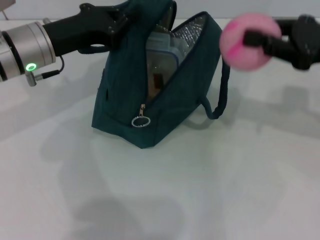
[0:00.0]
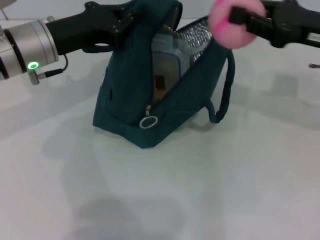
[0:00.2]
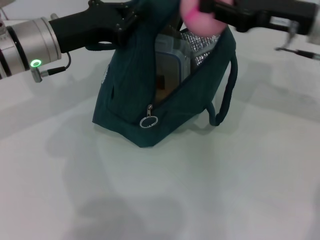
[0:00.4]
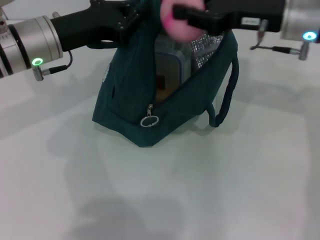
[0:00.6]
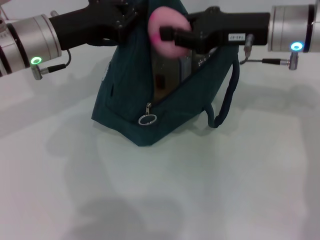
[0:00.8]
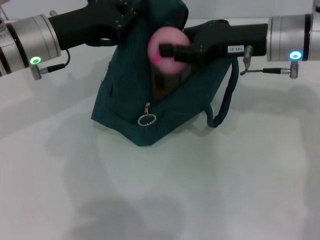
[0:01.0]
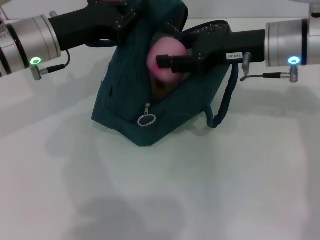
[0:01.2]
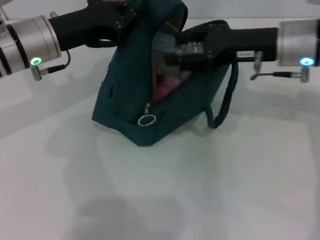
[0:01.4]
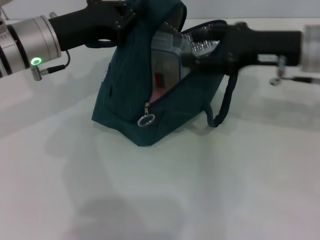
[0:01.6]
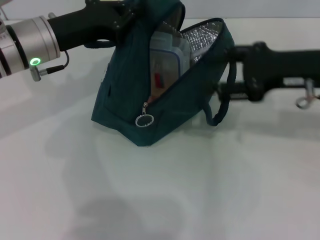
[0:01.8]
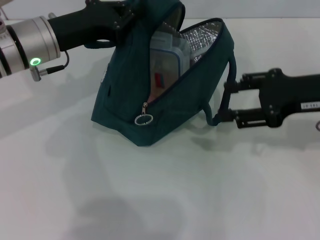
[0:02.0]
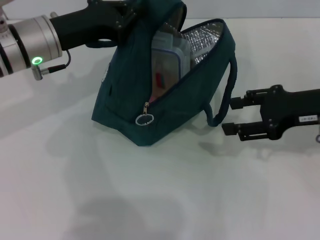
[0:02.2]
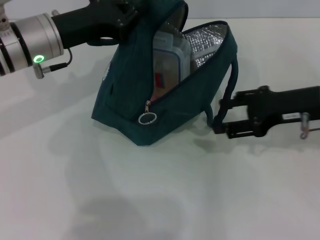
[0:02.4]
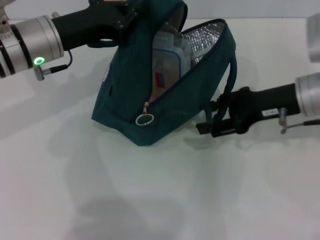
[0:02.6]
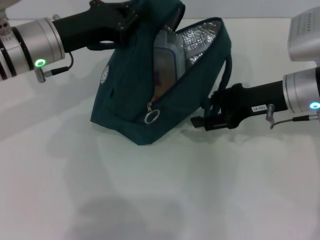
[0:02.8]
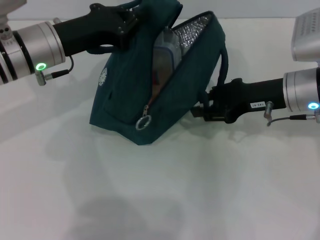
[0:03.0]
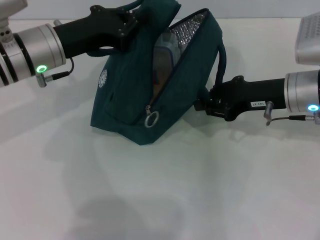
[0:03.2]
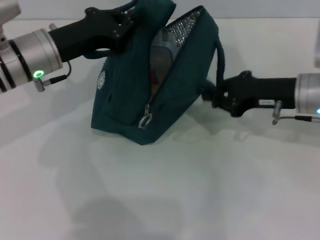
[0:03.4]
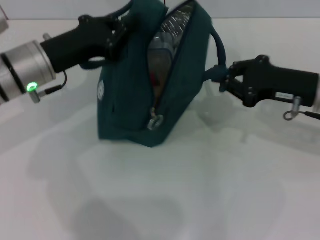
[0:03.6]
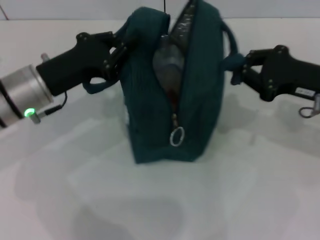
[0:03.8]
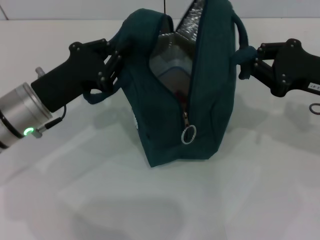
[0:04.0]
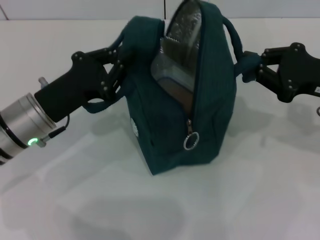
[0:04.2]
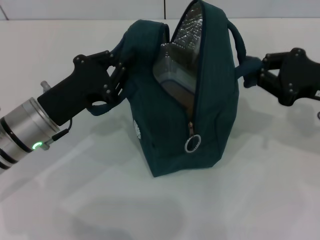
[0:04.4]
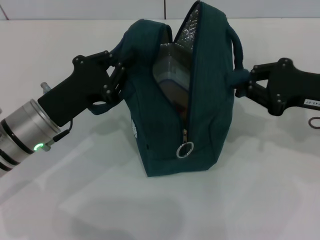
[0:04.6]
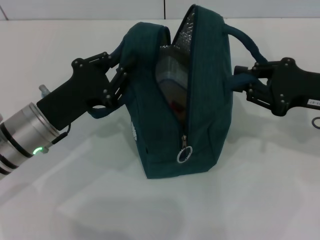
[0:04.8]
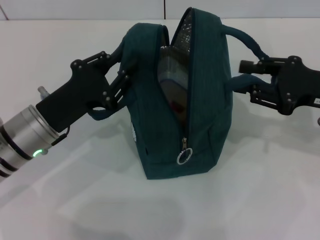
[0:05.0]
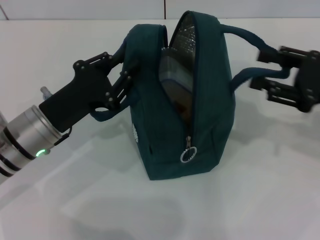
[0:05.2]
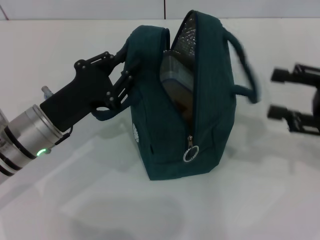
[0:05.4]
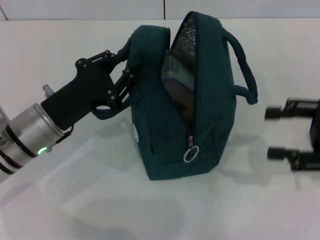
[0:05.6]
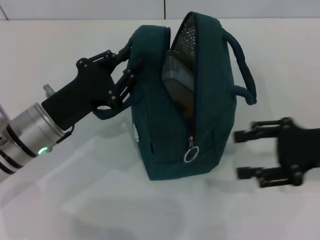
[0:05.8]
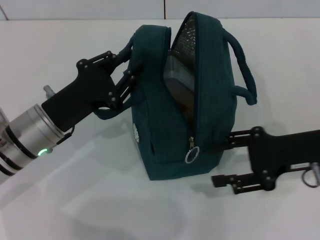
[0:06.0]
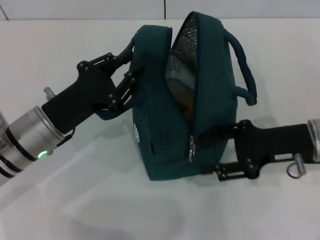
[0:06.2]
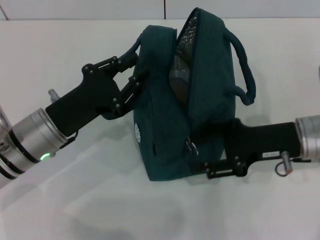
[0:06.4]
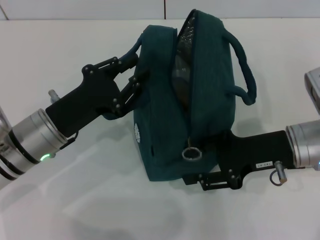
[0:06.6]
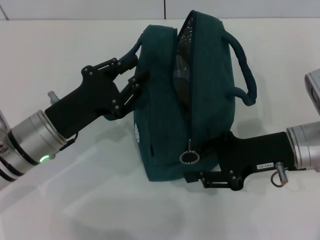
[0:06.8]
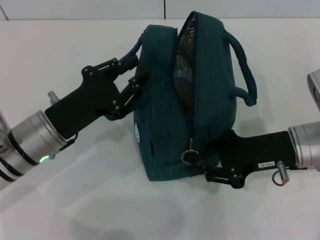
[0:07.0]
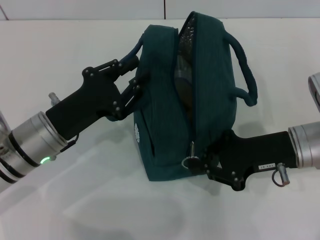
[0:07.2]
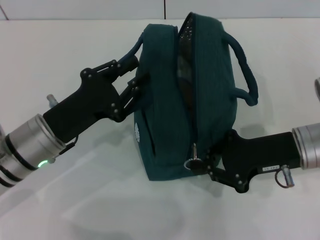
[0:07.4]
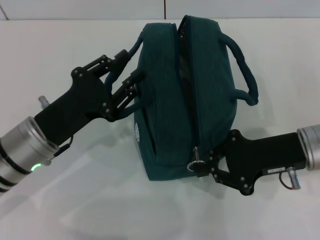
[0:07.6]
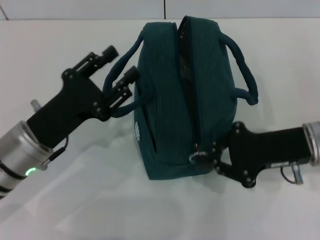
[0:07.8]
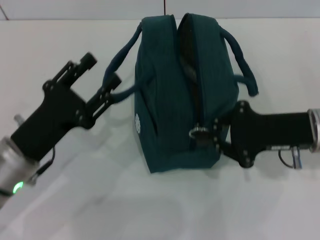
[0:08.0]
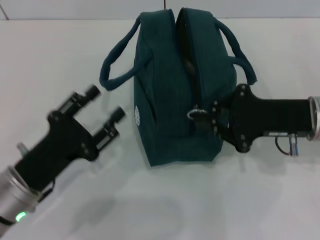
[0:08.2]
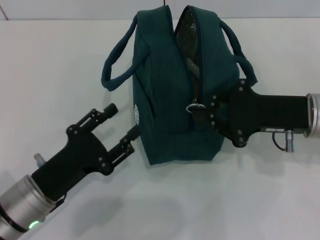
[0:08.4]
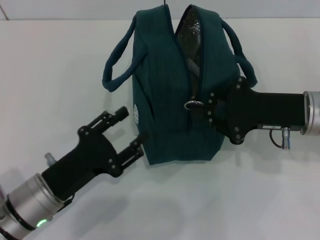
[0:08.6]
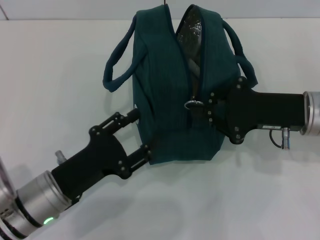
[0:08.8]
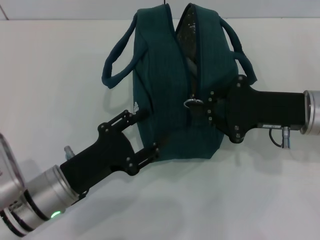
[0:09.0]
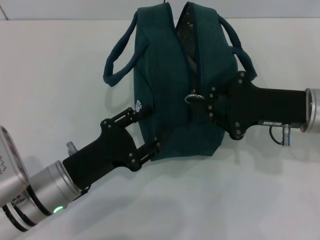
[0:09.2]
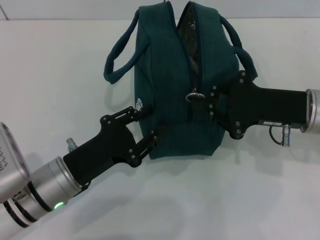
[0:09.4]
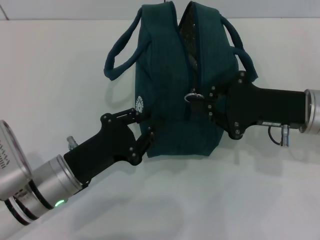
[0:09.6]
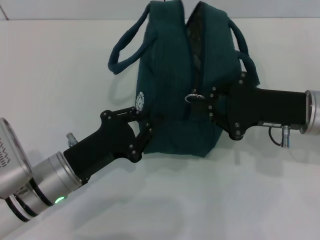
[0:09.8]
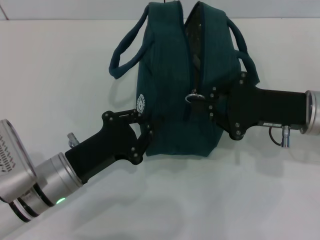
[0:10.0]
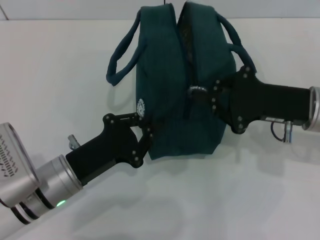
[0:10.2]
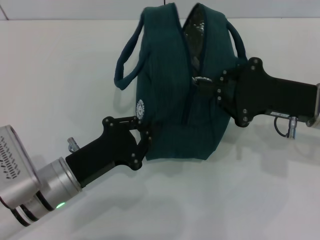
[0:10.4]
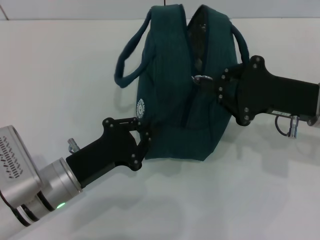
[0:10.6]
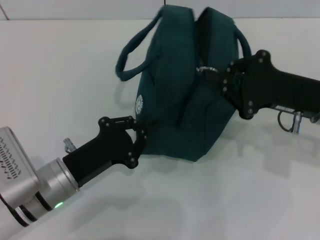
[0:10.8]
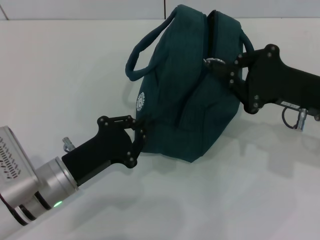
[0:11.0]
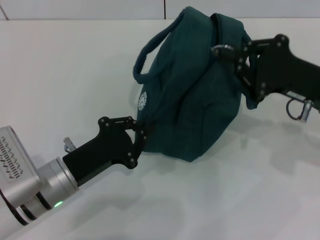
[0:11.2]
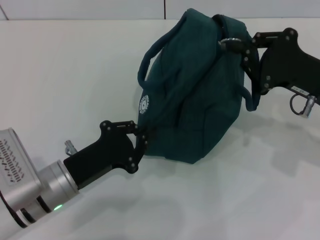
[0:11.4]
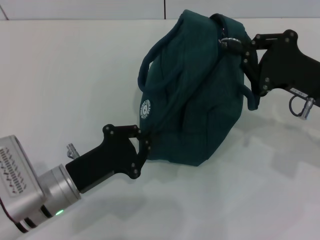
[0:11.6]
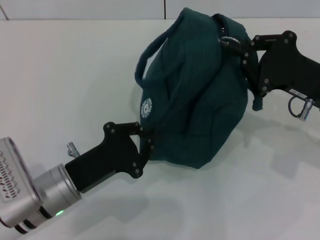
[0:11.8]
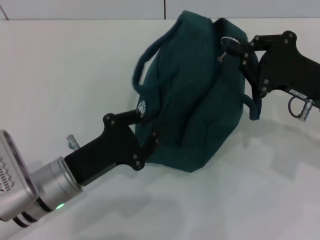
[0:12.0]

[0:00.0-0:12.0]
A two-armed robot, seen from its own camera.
Step, 0:02.0 to 0:05.0: Hold the lunch bag with your right hand.
0:00.0 to 0:01.6: The right gripper moves to the left, about 5 cm, and opens.
0:01.6 to 0:03.0: The right gripper shifts about 5 cm downward.
0:03.0 to 0:04.4: The left gripper moves backward and downward, roughly 10 cm; the right gripper moves to the right, some 5 cm, and closes.
0:04.4 to 0:06.0: The right gripper changes place by some 5 cm, and opens up.
0:06.0 to 0:07.6: The right gripper closes.
0:07.6 to 0:09.0: The left gripper shifts by about 5 cm, and opens up.
0:09.0 to 0:10.4: The left gripper closes its fingers.
0:10.4 to 0:12.0: The grippers make only small movements.

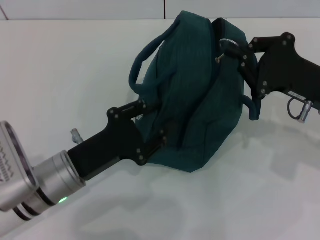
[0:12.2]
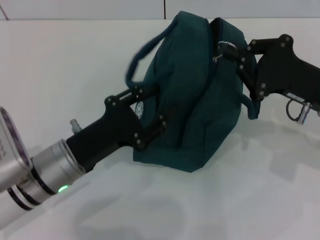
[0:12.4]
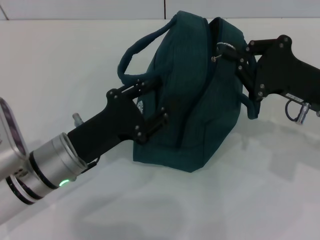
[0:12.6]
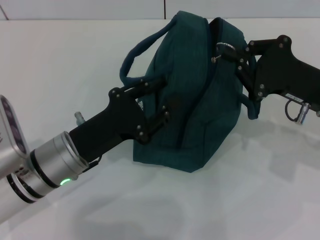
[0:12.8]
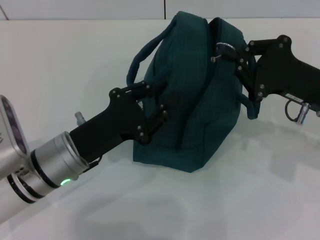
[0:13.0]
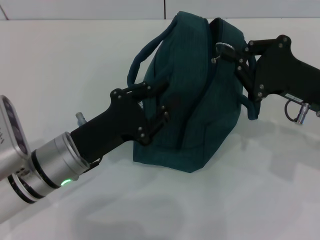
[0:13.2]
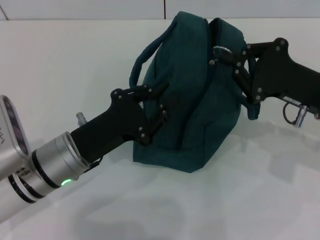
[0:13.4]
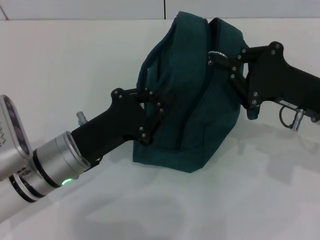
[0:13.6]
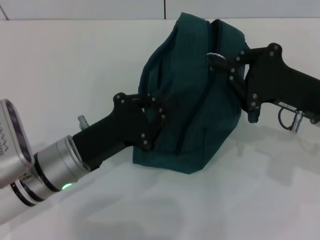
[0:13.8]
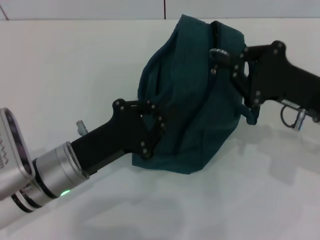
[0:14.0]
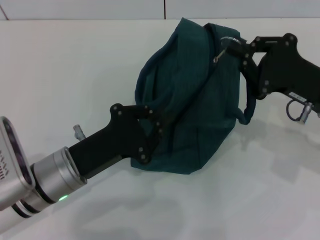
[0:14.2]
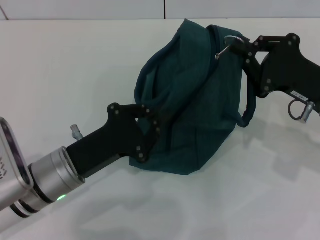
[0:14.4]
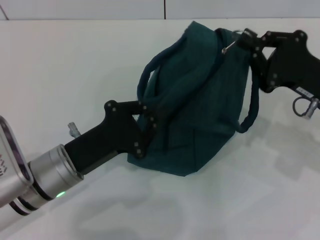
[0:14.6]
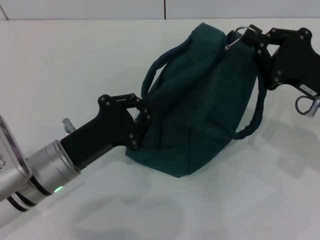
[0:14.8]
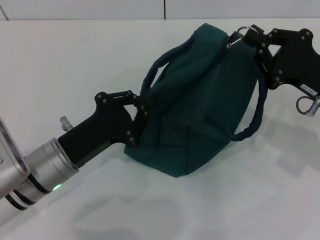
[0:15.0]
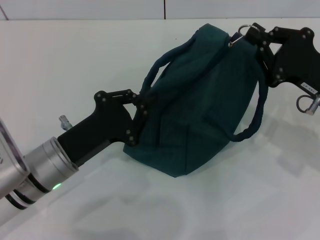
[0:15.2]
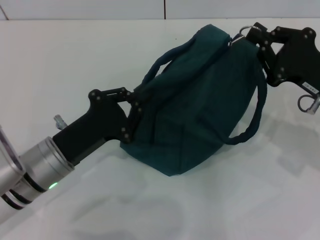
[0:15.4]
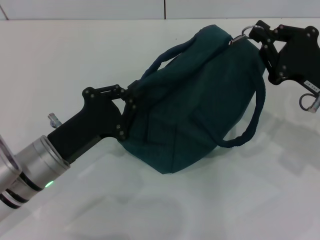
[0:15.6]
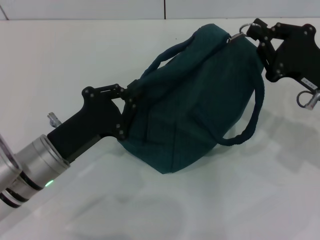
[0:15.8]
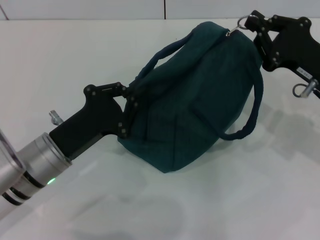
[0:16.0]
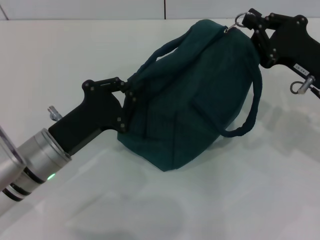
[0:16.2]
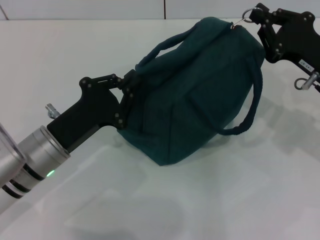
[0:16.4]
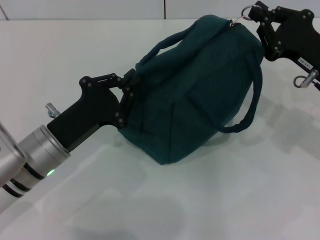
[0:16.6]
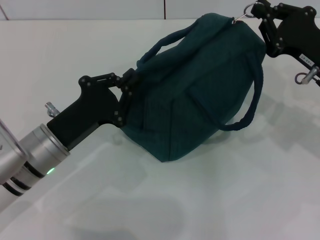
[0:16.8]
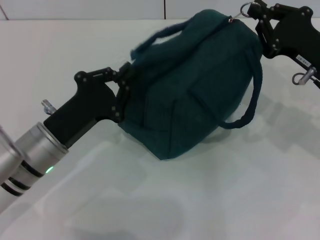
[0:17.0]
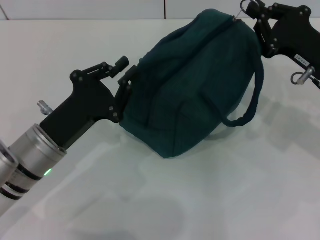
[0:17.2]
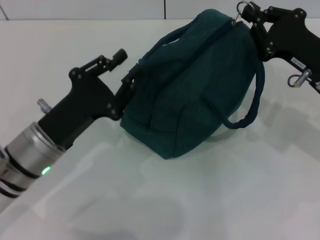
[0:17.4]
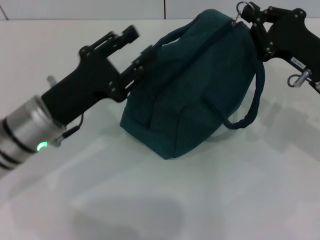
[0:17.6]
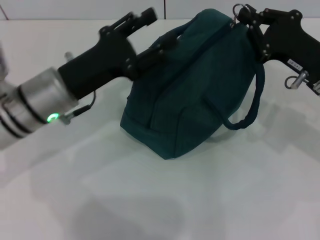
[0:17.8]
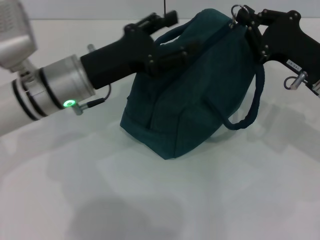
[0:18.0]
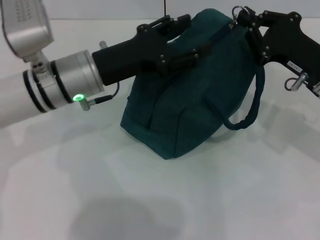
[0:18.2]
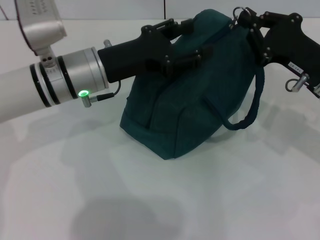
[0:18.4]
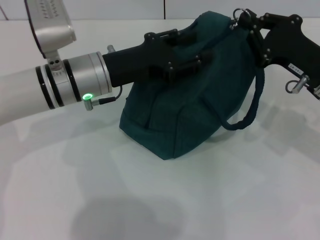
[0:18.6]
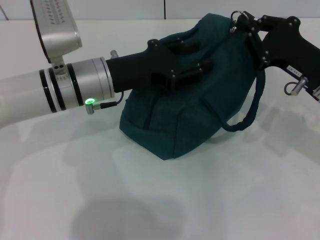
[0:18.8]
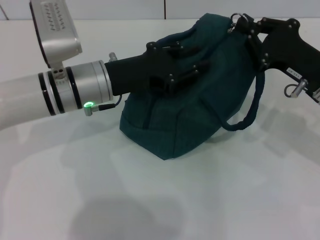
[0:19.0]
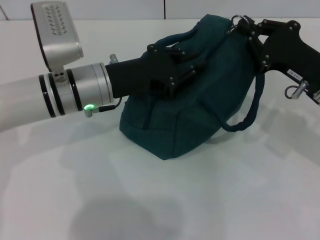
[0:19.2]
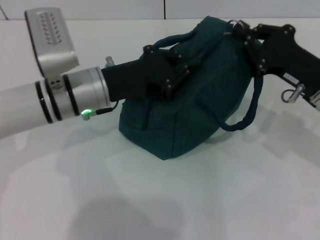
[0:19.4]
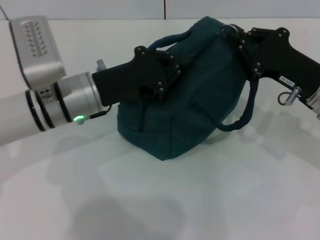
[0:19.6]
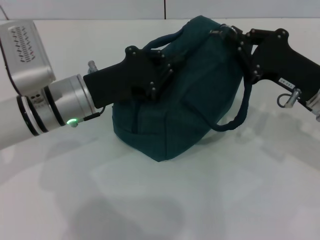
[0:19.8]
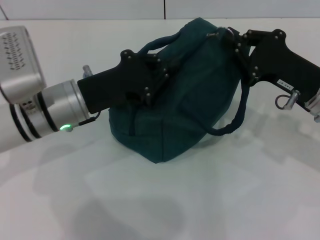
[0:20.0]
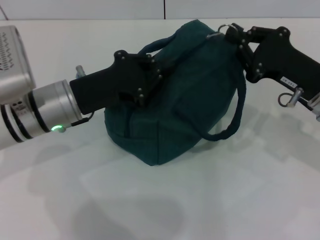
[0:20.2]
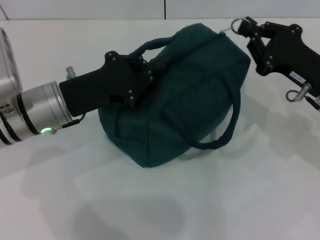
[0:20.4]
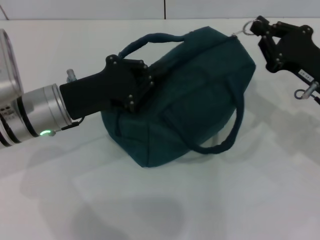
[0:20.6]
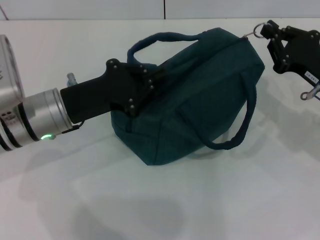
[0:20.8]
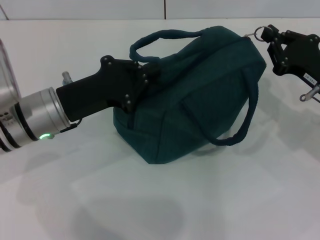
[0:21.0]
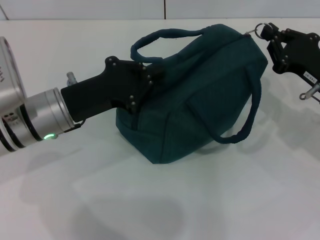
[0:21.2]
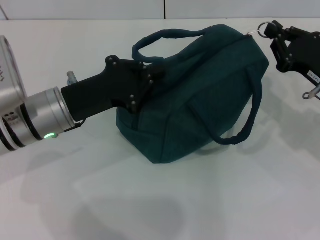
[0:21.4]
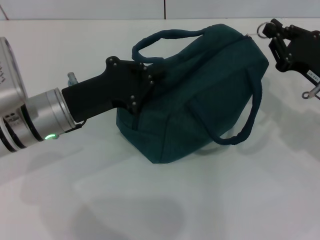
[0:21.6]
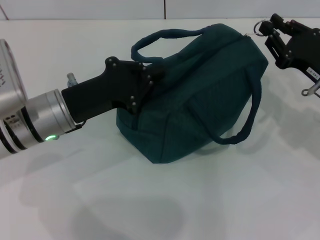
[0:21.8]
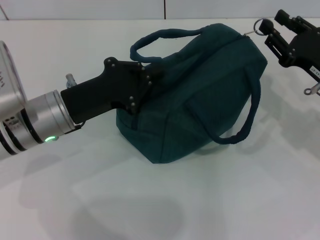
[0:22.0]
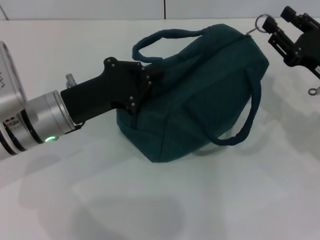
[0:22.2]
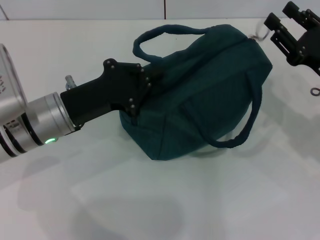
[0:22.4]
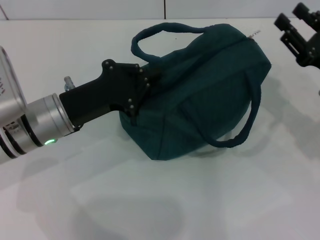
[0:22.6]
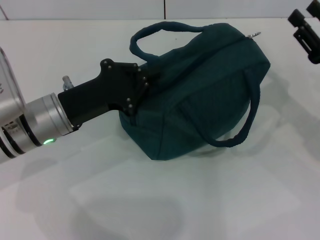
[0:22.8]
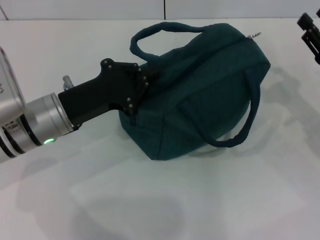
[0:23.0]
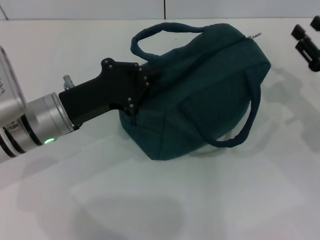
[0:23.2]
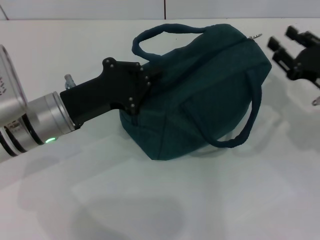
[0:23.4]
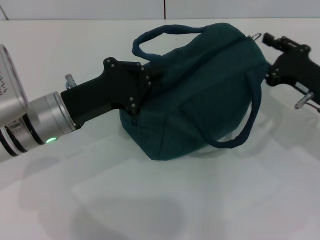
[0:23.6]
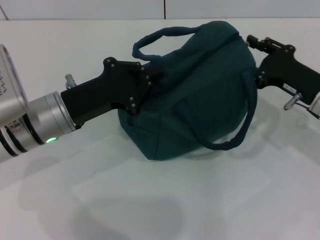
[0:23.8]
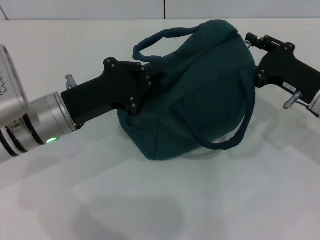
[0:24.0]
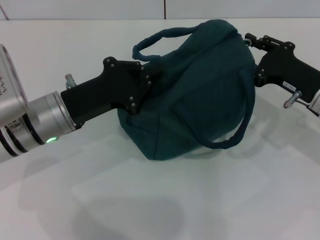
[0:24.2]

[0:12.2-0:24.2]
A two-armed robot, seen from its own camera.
0:12.2 to 0:15.2: The grippers stay close to where they were, moving slightly.
0:16.6 to 0:18.2: The left gripper is displaced forward and upward by about 10 cm, and opens.
0:18.2 to 0:19.8: The left gripper closes up.
0:21.2 to 0:22.6: The right gripper opens up.
0:22.6 to 0:24.2: The grippers stay close to where they were, moving slightly.
